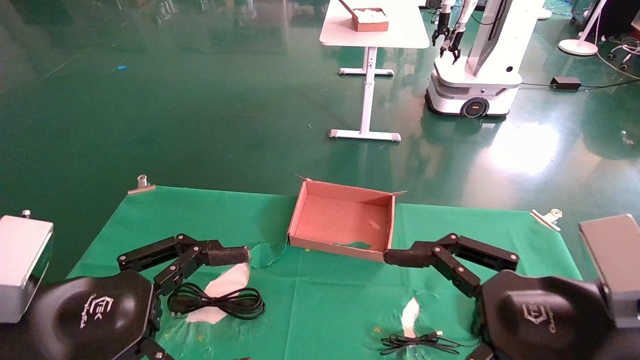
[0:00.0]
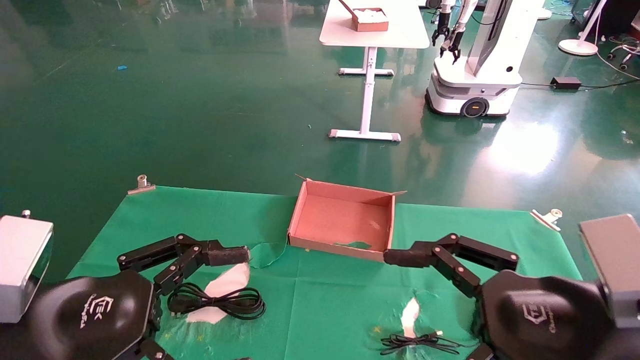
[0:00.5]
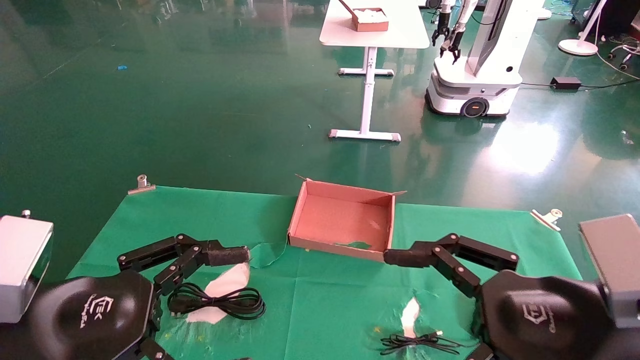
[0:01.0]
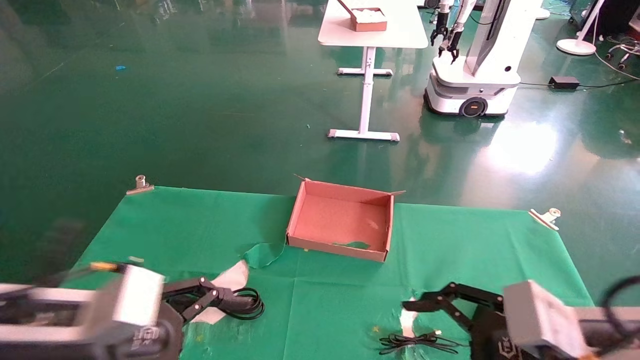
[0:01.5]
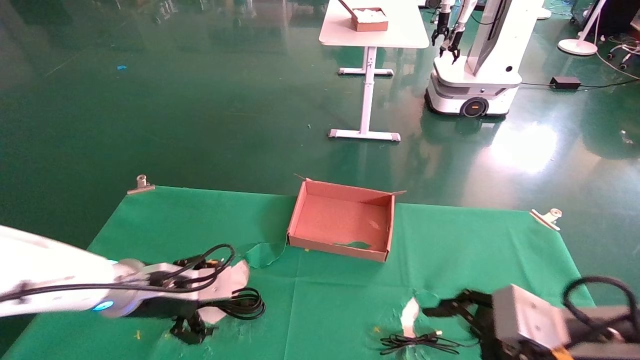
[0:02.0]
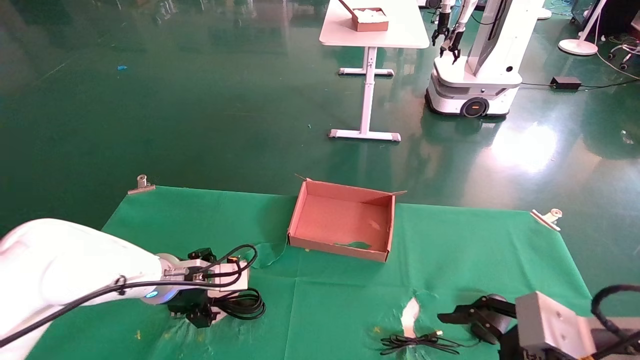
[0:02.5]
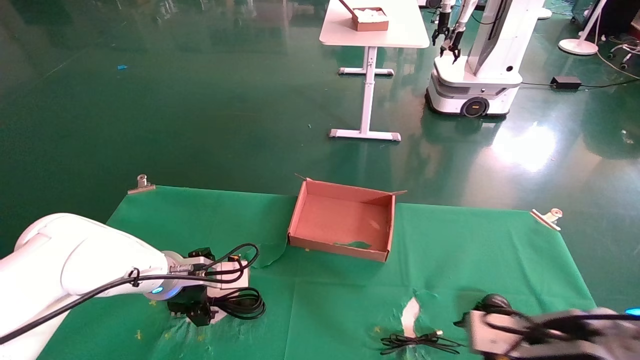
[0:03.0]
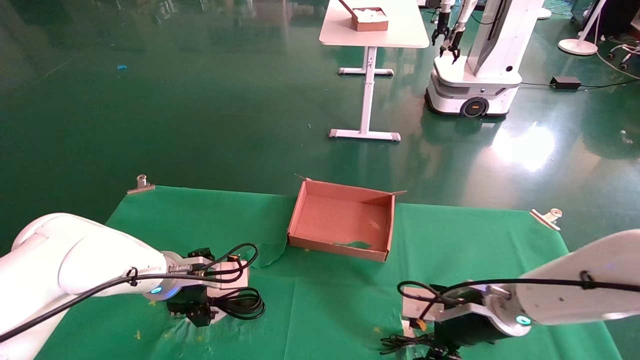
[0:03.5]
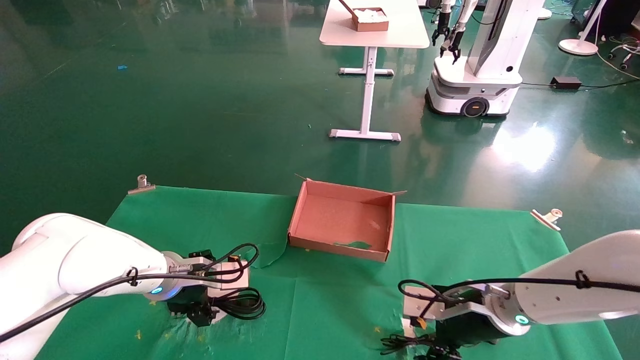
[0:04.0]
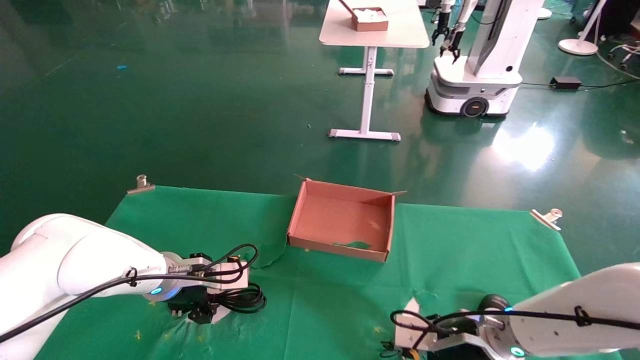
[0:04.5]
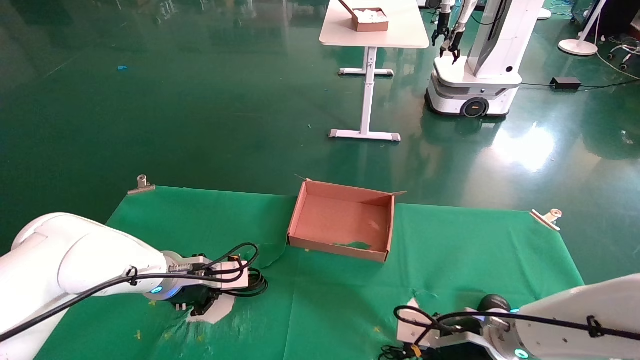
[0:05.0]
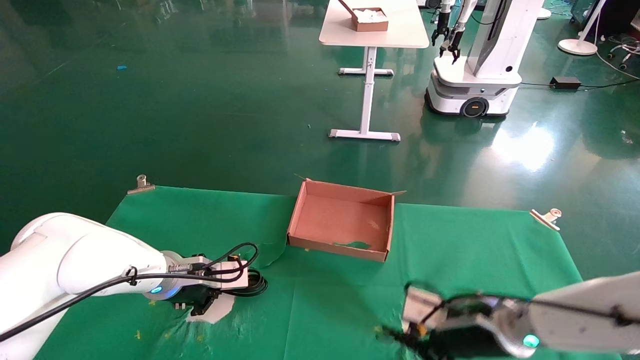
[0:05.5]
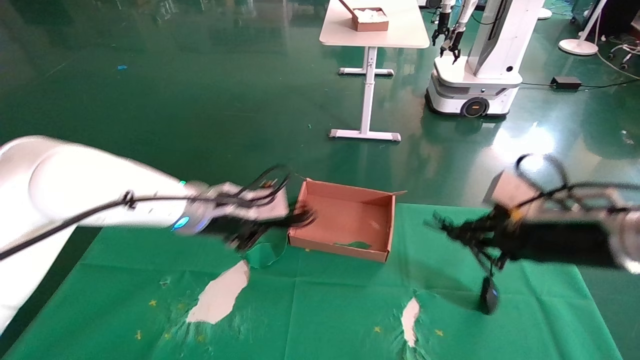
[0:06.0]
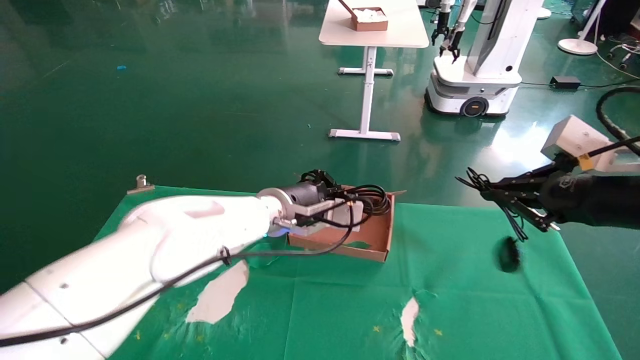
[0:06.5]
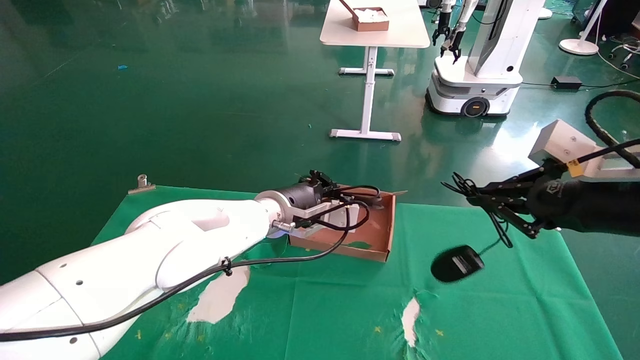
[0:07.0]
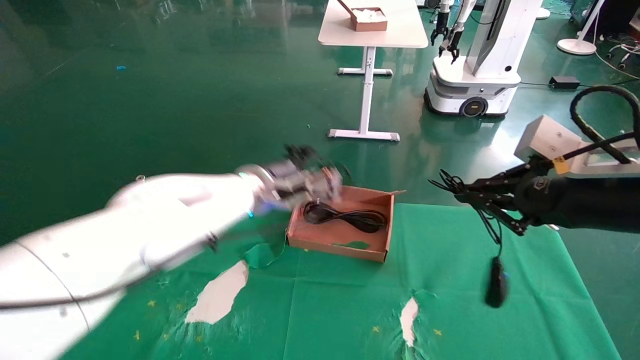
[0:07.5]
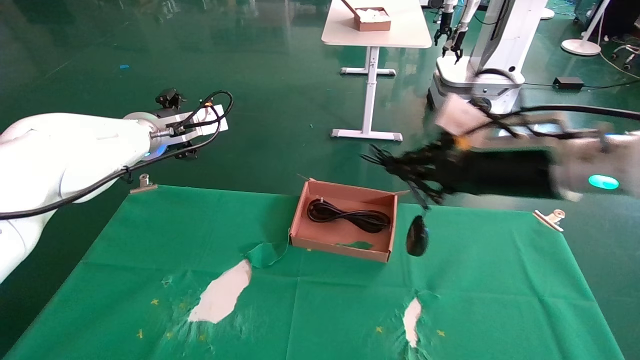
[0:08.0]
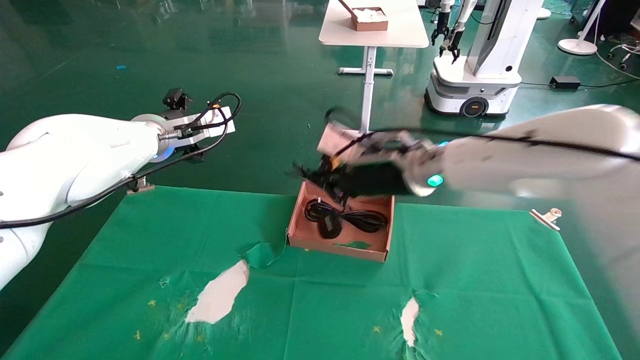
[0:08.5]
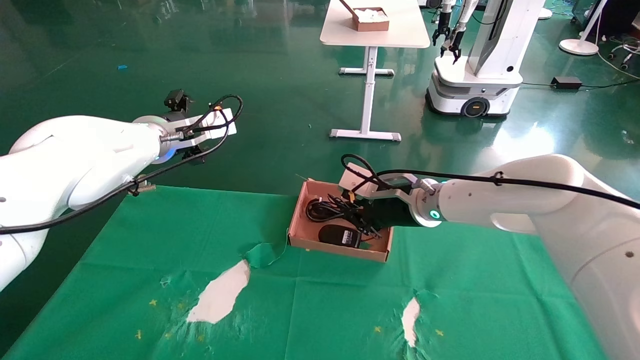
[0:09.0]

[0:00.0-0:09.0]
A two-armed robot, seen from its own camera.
Step, 0:01.5 to 0:06.0: Grab and lift both the mouse and power cord from the accessory packaging area at the same time.
0:00.0 to 0:02.0: The left gripper shifts about 20 cm forward and downward. Meanwhile the right gripper moves downward, some 5 cm.
0:02.0 to 0:04.5: The left gripper moves forward, some 5 cm, and closes up; the right gripper moves forward, downward and to the left, roughly 20 cm.
0:04.5 to 0:07.0: The left gripper shifts approximately 20 cm to the right and upward, and closes up. Meanwhile the right gripper shifts roughly 25 cm upward, to the right and backward, and closes up.
0:07.0 to 0:09.0: The left gripper shifts approximately 20 cm to the left and upward, and opens its fingers, while the right gripper shifts about 25 cm to the left and forward.

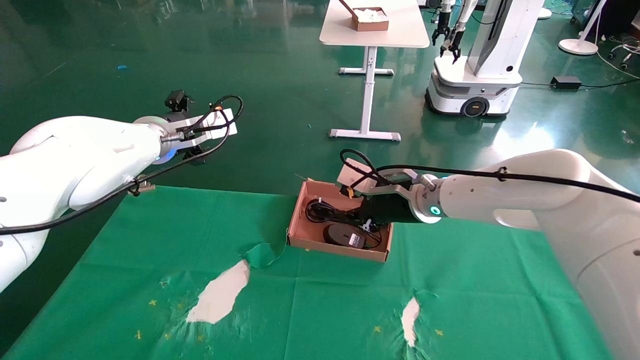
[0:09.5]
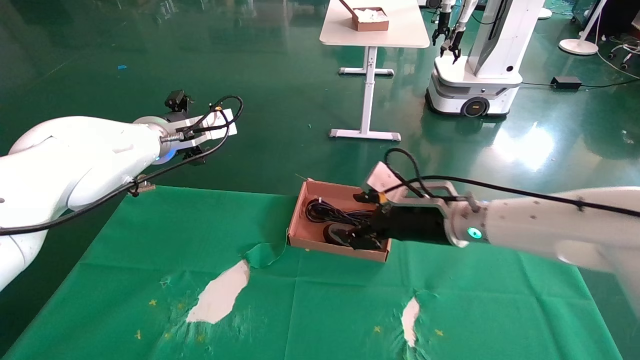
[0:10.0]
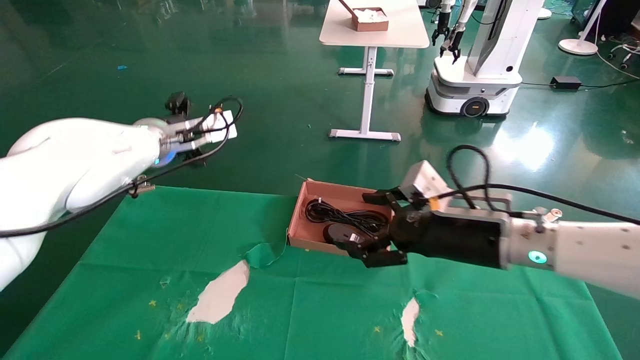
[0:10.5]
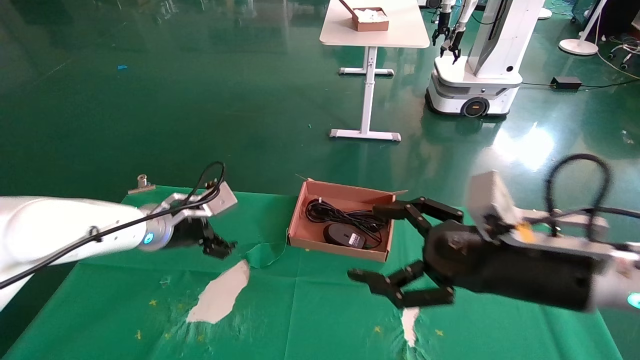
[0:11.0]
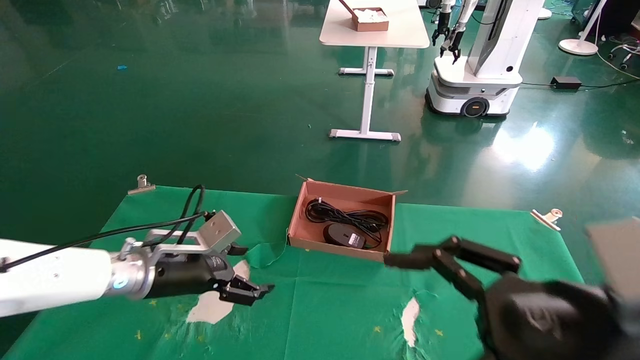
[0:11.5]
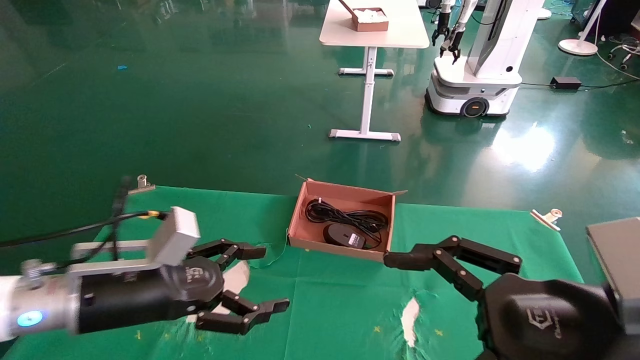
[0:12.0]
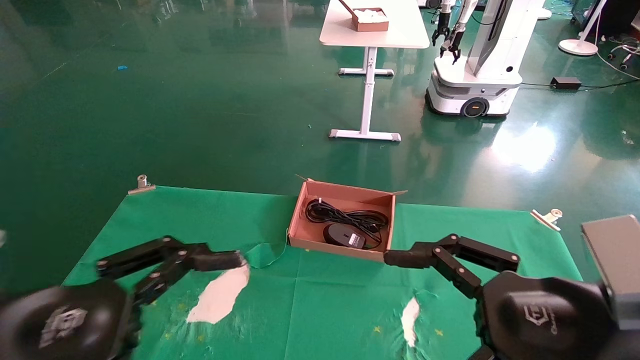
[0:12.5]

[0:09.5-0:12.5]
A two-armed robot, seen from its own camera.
0:09.5 to 0:11.0: The left gripper travels downward by approximately 15 cm, while the right gripper is displaced backward and to the right by approximately 20 cm, and opens up.
0:11.0 to 0:12.5: The left gripper is displaced backward by approximately 30 cm. Meanwhile the right gripper heads backward, covering some 10 cm.
